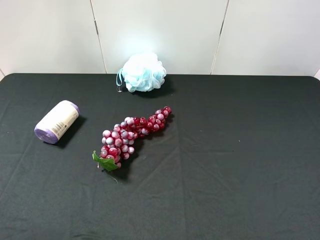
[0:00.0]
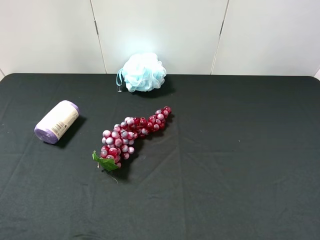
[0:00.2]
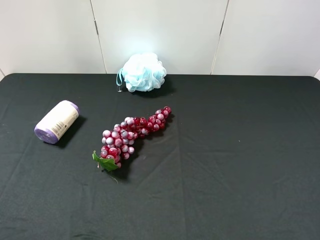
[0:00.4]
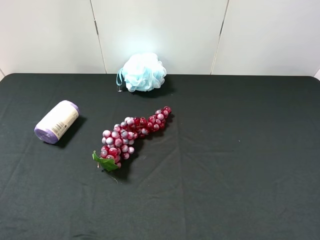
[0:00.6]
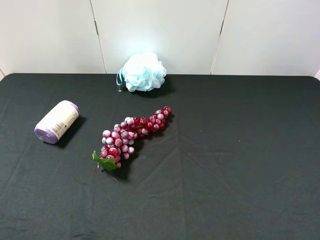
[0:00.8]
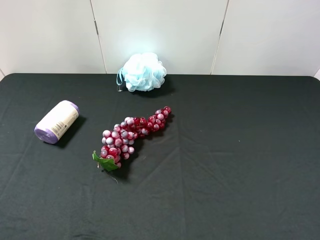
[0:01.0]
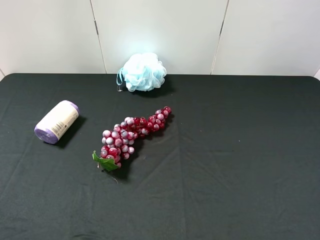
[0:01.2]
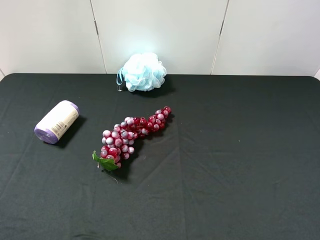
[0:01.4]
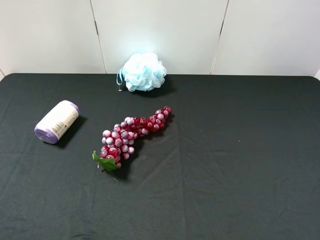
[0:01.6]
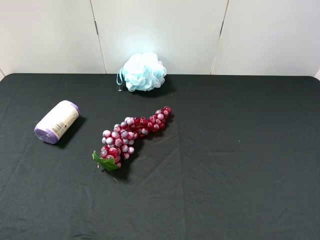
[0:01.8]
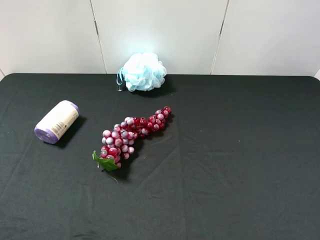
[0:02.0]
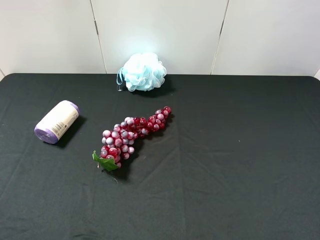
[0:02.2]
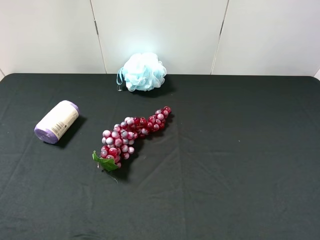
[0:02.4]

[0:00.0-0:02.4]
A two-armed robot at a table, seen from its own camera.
Task of the whole recording: use the right gripper to pick up the item and transfer it from the right gripper to the left gripper.
0:01.2 to 0:02.4: Both grippers stay about where they are.
